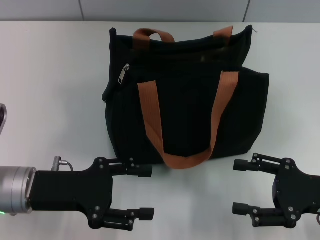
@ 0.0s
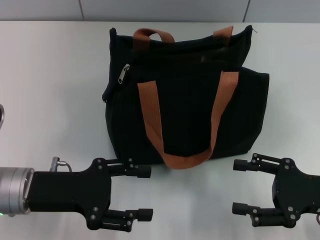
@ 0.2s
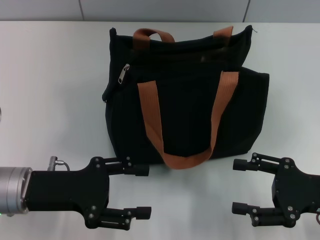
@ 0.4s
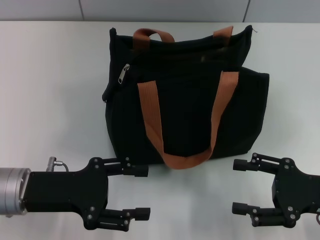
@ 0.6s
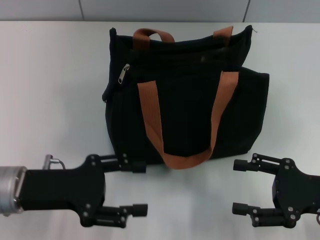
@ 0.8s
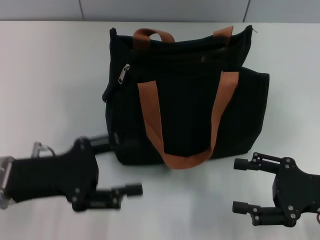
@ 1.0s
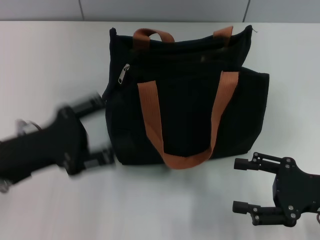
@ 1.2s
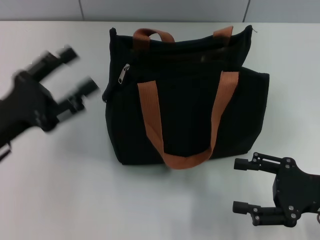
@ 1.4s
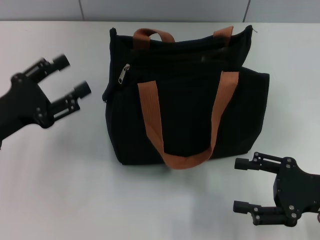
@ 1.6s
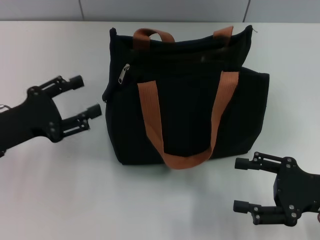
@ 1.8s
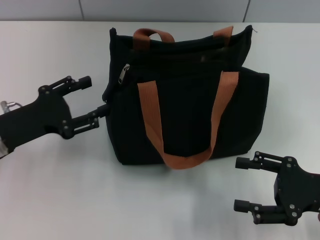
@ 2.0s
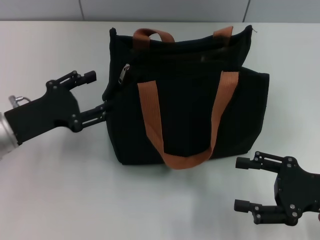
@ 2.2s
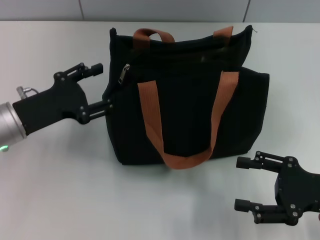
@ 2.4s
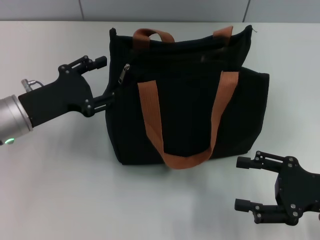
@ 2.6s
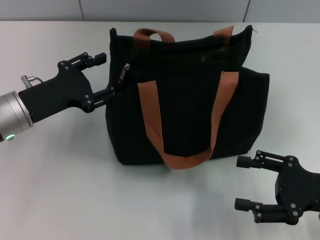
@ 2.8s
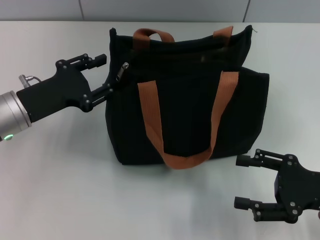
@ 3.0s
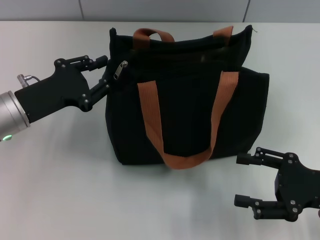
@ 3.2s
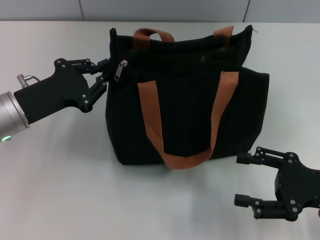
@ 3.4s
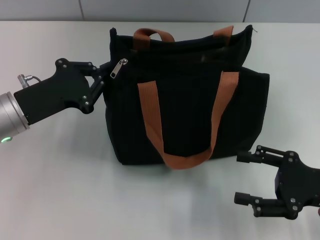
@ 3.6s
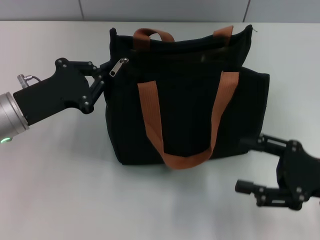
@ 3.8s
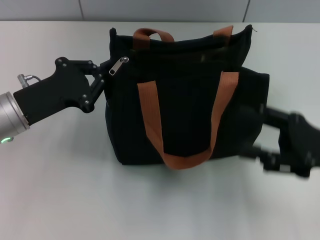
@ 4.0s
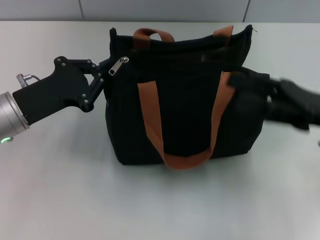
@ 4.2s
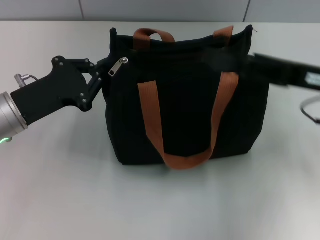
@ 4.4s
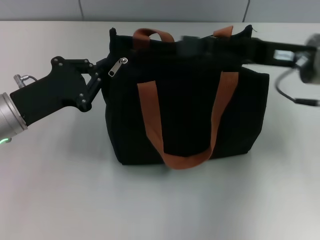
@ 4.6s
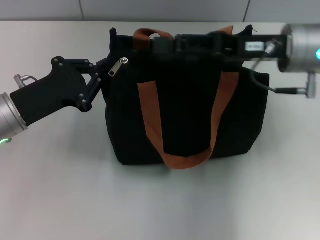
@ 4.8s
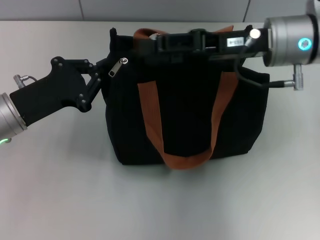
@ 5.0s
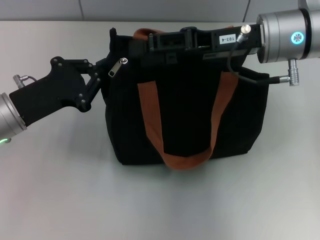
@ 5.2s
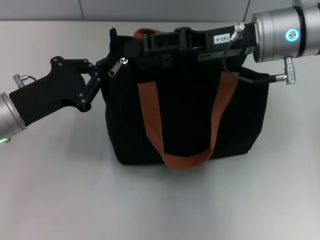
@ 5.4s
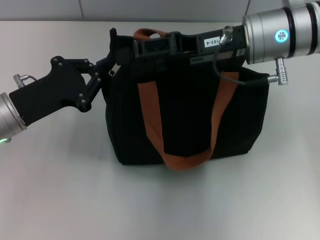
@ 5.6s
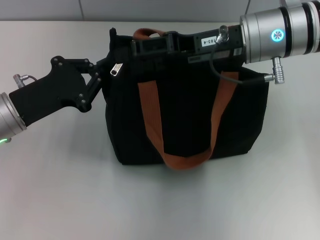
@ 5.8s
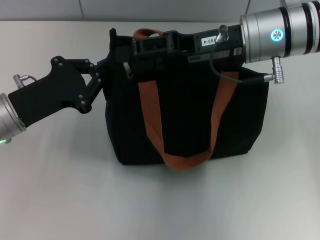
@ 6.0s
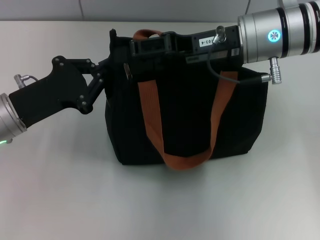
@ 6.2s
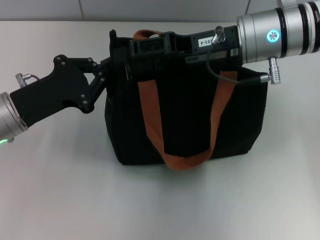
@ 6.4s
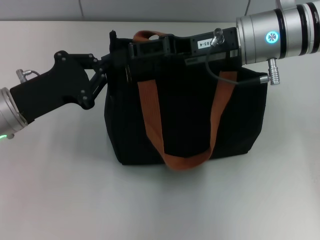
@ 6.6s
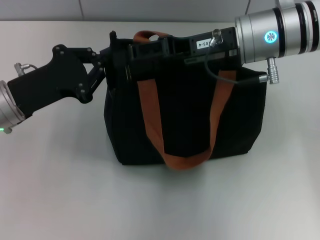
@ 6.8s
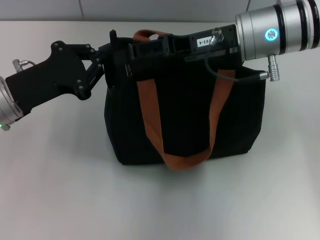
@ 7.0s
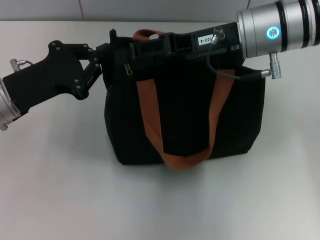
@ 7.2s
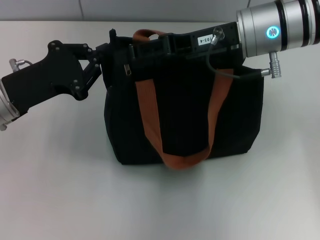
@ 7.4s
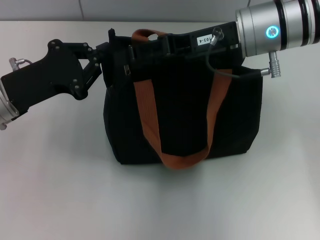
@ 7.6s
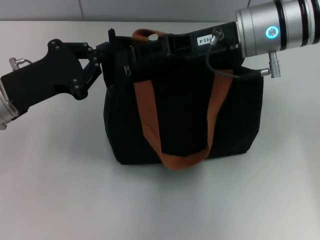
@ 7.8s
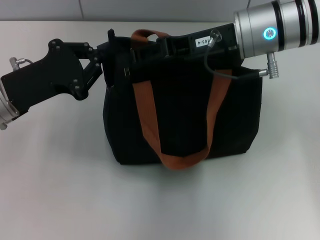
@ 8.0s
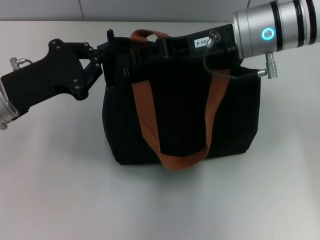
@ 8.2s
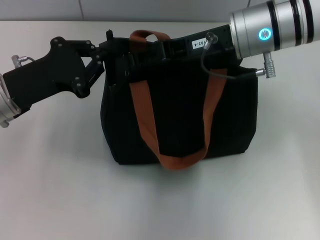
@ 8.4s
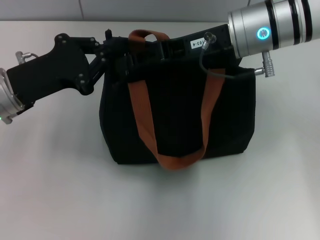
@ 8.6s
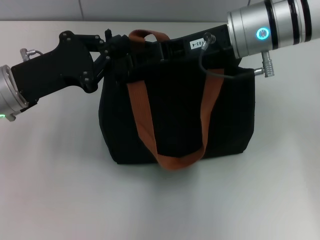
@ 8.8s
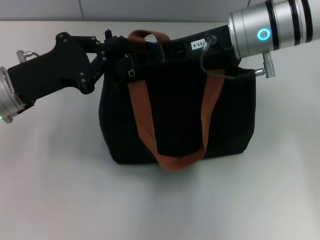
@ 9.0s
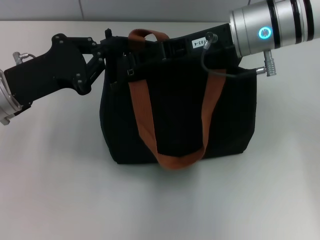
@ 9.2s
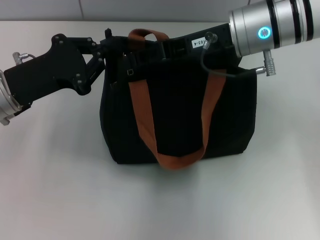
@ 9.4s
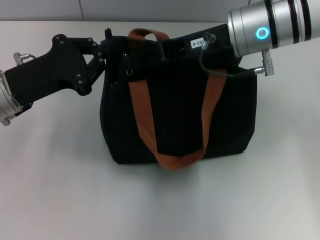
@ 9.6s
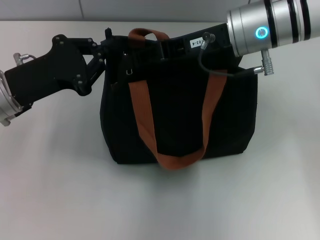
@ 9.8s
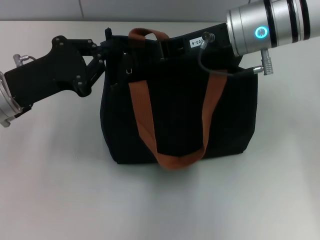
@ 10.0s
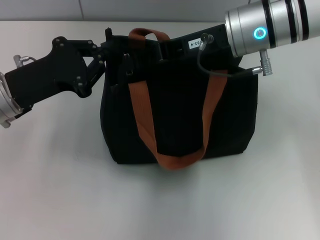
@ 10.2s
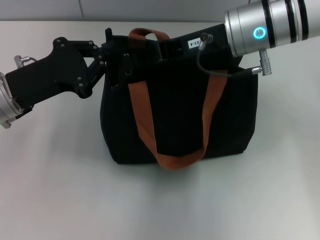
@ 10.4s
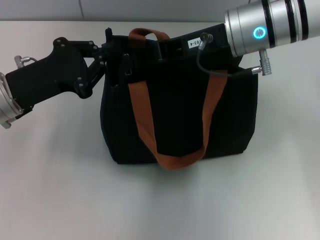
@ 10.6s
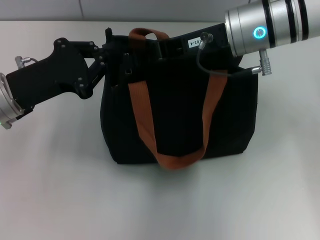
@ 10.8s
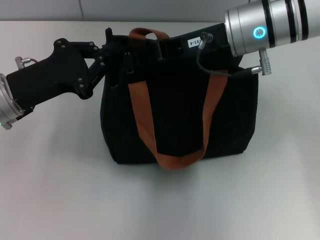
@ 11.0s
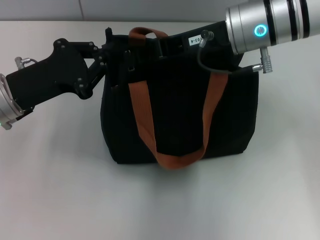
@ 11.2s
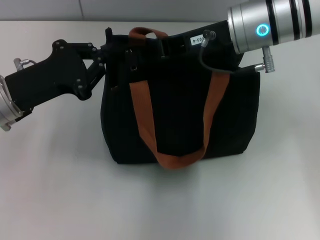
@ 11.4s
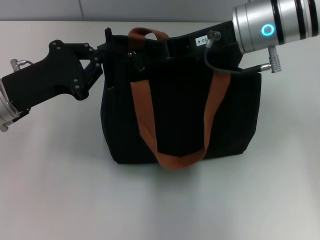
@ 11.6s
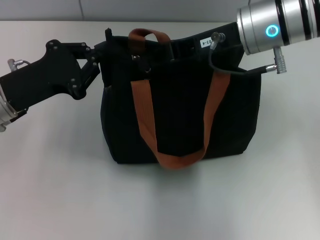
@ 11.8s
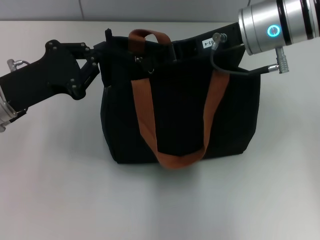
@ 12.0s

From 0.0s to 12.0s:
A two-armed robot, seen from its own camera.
From 0.0s to 1.6s: The left gripper heads to the left, covering approximately 5 cm.
From 1.6s to 3.0s: The left gripper moves forward, about 5 cm.
From 3.0s to 4.4s: The left gripper closes its fingers. Meanwhile the right gripper shifts some 15 cm forward, upward and to the left.
From 4.4s to 6.0s: The right gripper shifts approximately 10 cm to the left and forward.
From 6.0s to 7.6s: The grippers make only small movements.
From 7.6s to 9.0s: The right gripper closes its fingers.
From 9.0s to 10.4s: The right gripper closes.
From 10.4s to 12.0s: The grippers move only a little.

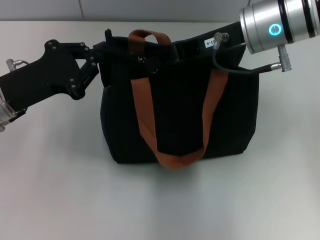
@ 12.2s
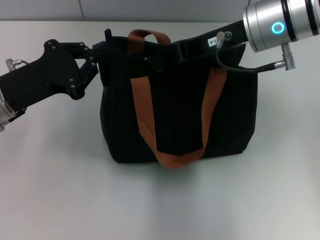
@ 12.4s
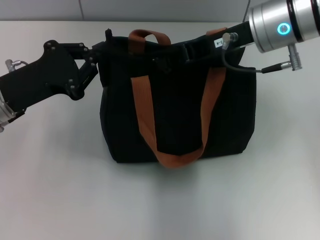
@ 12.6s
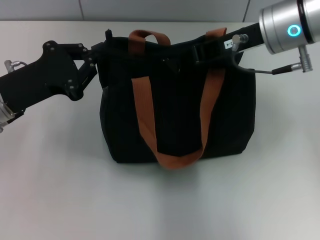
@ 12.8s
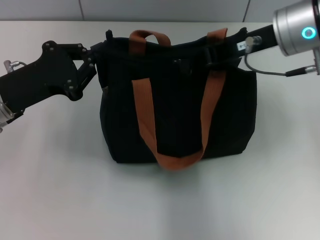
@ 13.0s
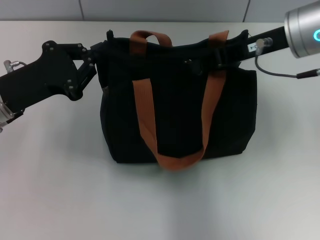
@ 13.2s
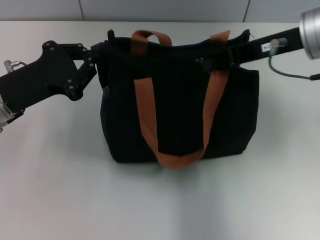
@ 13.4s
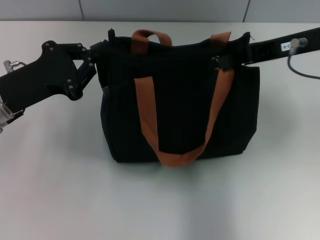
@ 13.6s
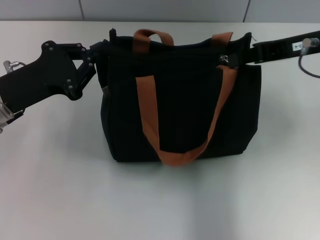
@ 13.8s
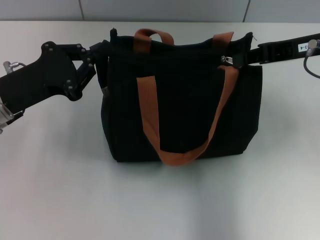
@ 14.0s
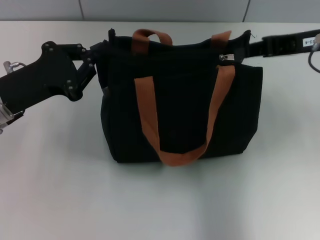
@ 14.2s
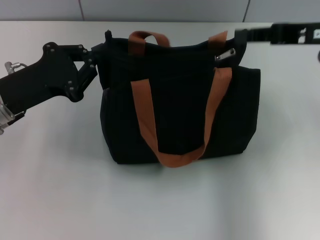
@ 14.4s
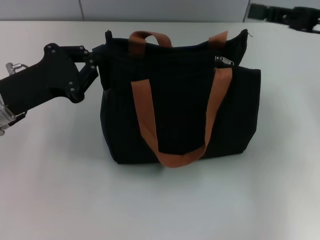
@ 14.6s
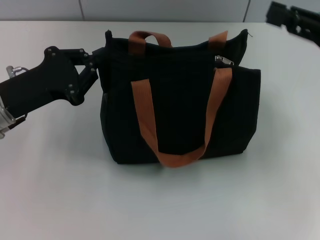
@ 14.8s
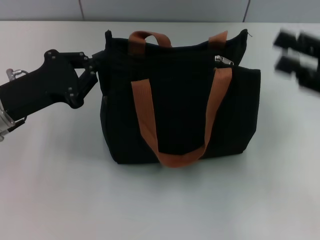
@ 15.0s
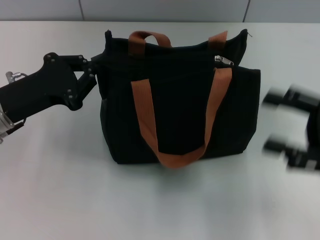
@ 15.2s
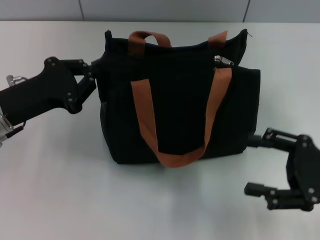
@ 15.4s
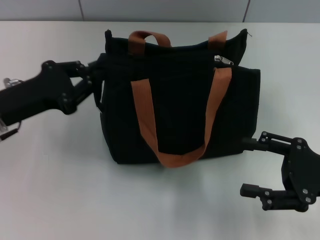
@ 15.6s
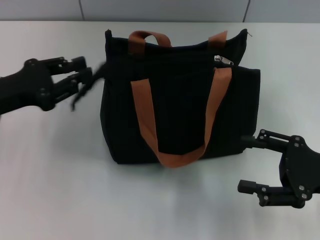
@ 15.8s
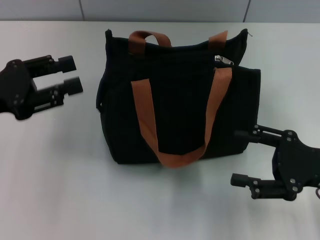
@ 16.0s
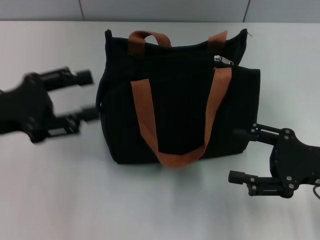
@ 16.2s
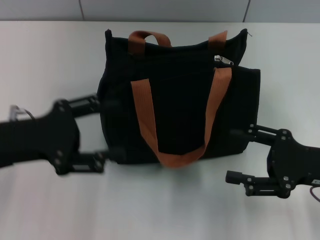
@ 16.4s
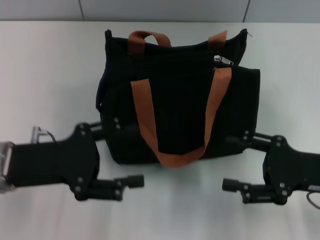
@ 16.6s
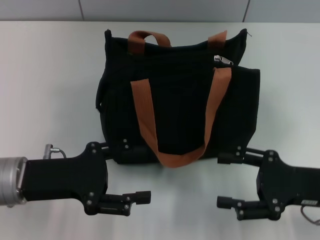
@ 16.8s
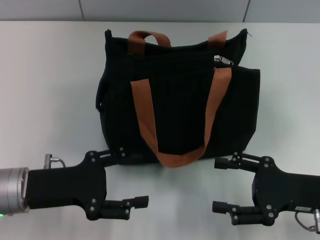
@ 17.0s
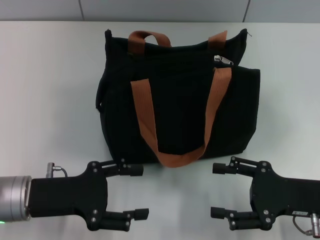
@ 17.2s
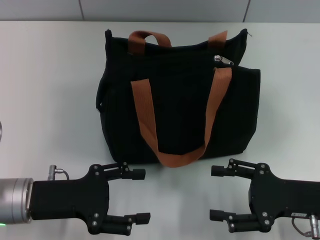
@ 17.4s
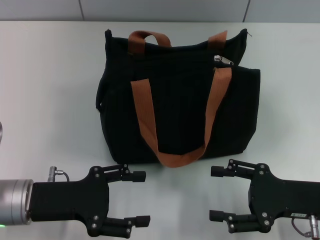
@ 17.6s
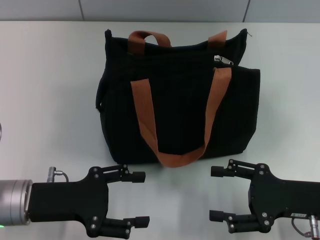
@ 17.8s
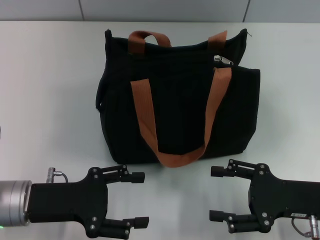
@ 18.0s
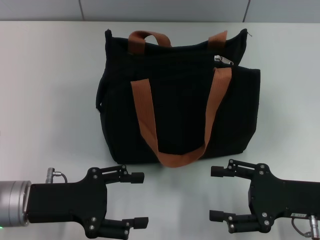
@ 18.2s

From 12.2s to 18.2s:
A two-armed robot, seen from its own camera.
Step, from 12.2s to 14.2s: Pull up the zipper with your right hand.
From 12.2s to 13.8s: The right gripper is displaced to the right by some 10 cm.
From 13.8s to 15.2s: The right gripper travels backward, downward and to the right by roughly 15 cm, and opens up.
From 15.2s to 16.6s: The left gripper moves some 5 cm, and opens.
From 16.6s to 18.2s: The left gripper changes place by some 5 cm.
